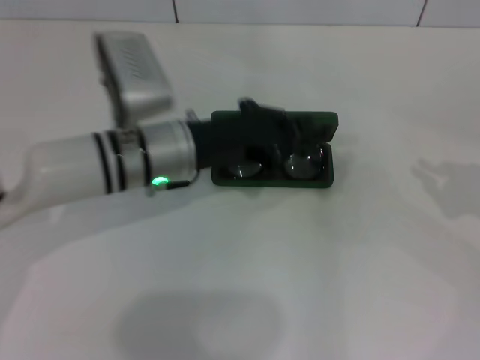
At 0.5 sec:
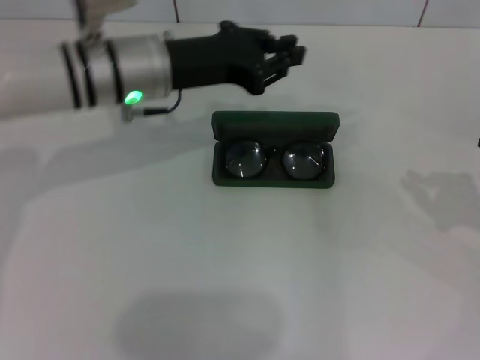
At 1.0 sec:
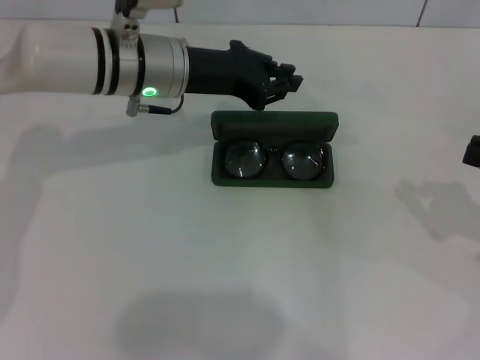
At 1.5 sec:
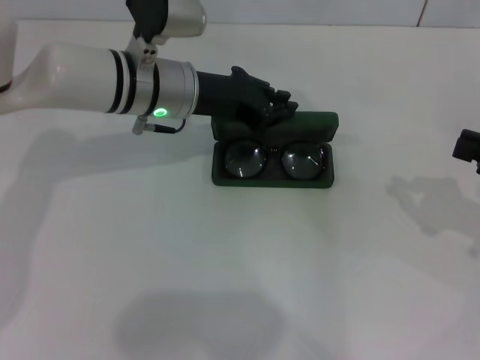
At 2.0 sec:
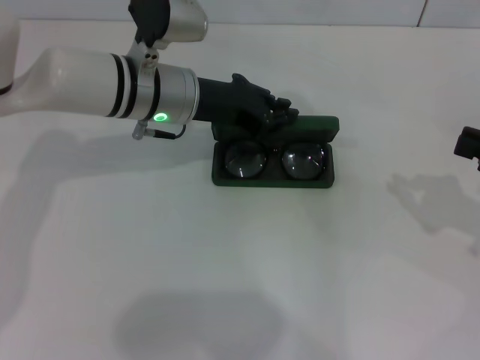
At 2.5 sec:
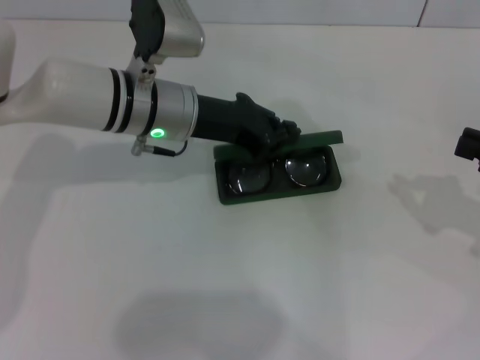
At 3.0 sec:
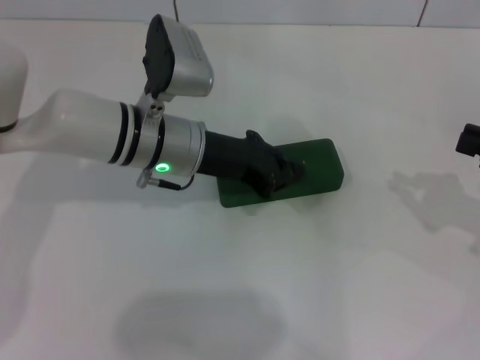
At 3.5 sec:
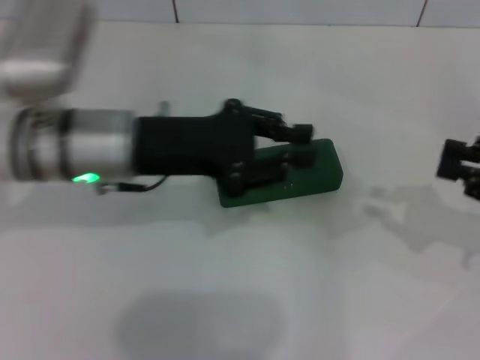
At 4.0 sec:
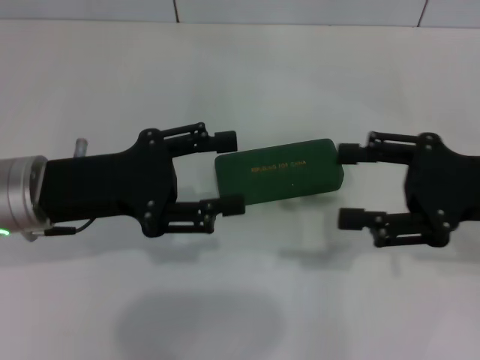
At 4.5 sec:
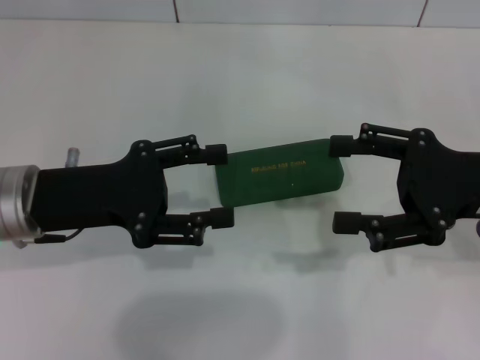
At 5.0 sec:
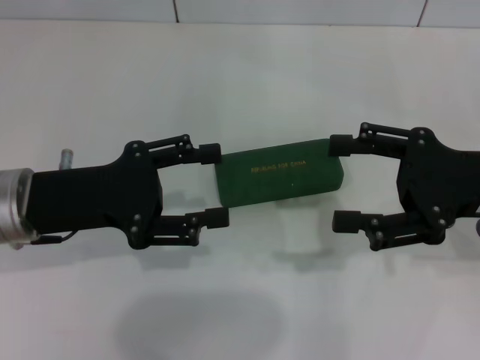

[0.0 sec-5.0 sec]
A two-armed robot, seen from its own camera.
Step, 0.0 sec to 2.5 sec: Close the glasses case with your left hand.
0.0 sec to 2.5 sec: The left gripper shifts roughly 5 cm forward.
2.5 sec to 5.0 sec: The right gripper moves to the left, roughly 10 cm, and opens its fingers. Meanwhile the left gripper moves backward and to the left, about 15 cm, and opens its fingers.
